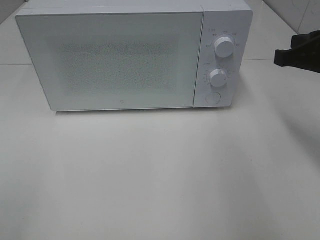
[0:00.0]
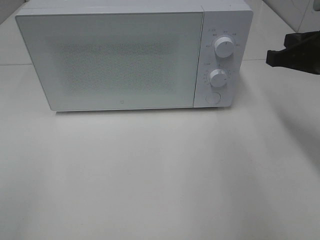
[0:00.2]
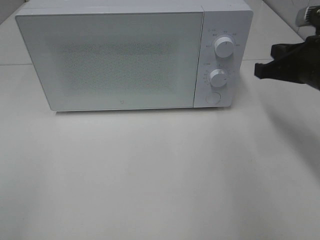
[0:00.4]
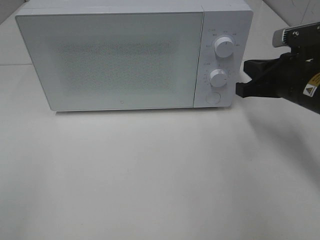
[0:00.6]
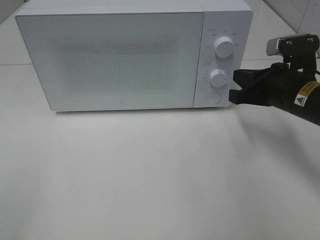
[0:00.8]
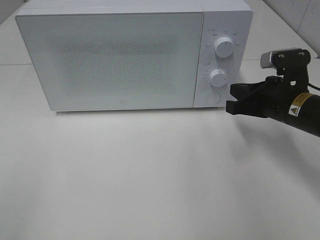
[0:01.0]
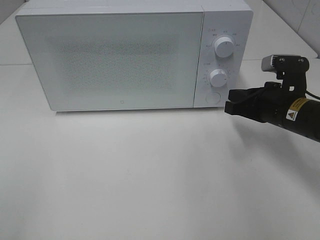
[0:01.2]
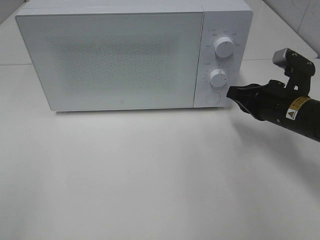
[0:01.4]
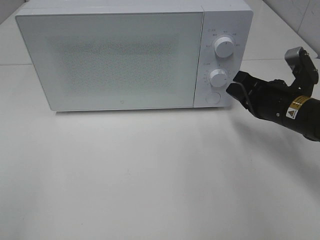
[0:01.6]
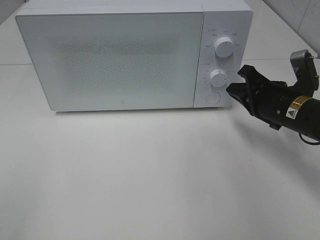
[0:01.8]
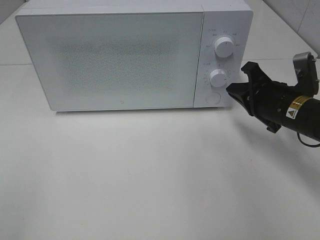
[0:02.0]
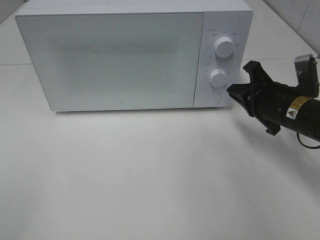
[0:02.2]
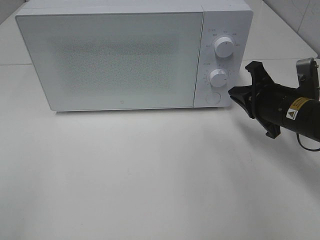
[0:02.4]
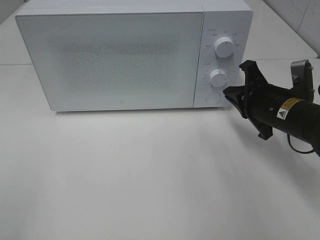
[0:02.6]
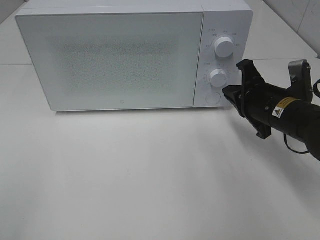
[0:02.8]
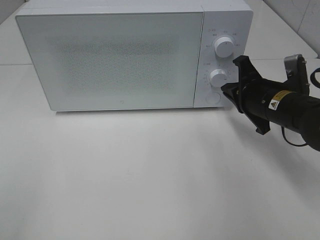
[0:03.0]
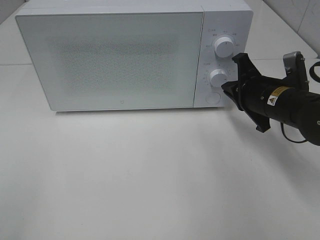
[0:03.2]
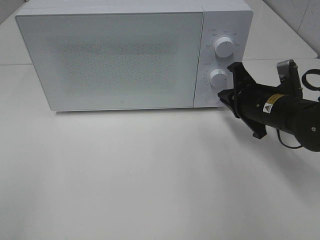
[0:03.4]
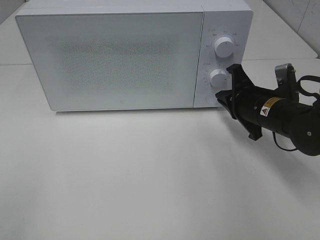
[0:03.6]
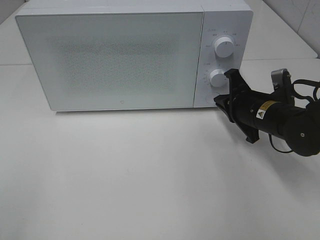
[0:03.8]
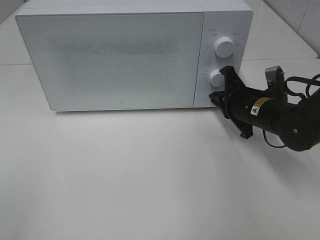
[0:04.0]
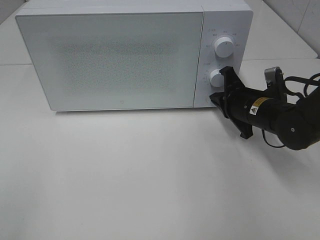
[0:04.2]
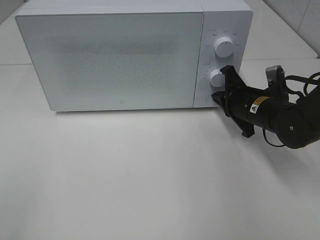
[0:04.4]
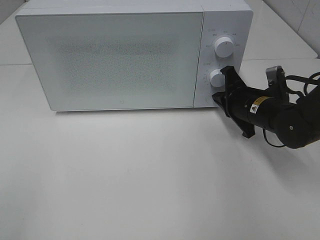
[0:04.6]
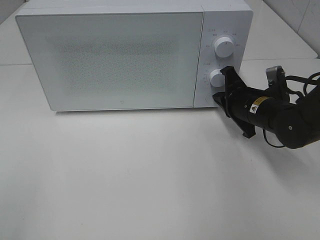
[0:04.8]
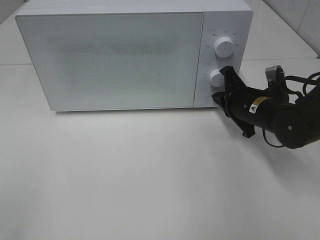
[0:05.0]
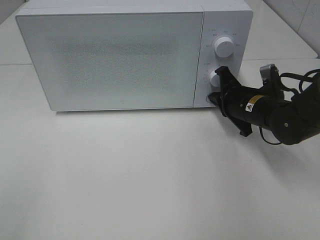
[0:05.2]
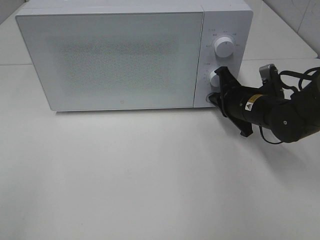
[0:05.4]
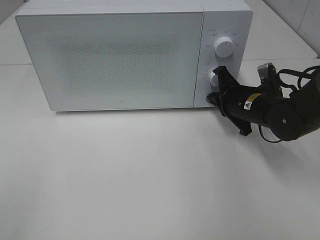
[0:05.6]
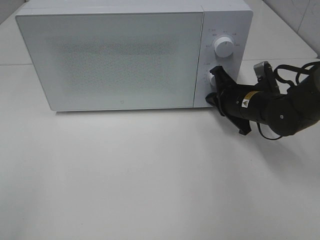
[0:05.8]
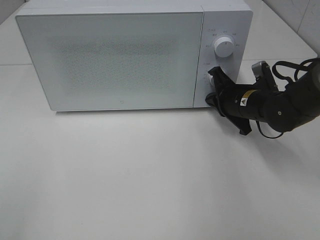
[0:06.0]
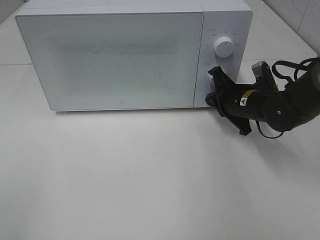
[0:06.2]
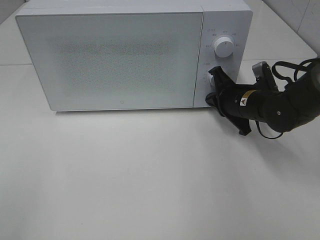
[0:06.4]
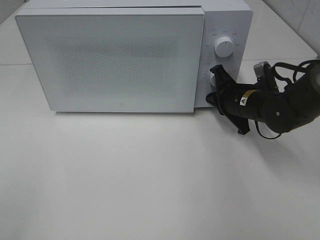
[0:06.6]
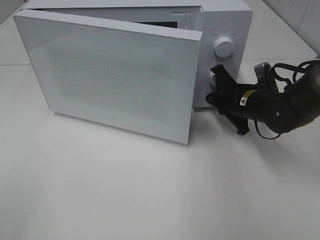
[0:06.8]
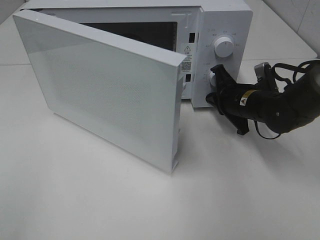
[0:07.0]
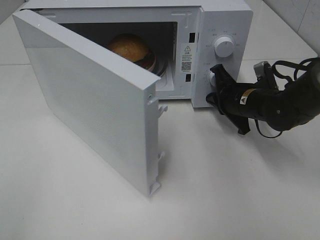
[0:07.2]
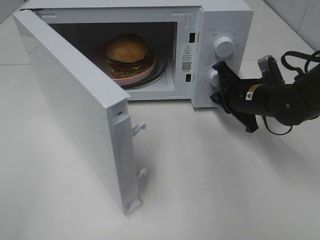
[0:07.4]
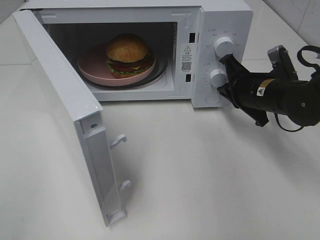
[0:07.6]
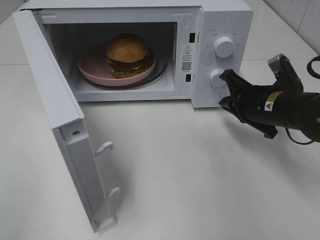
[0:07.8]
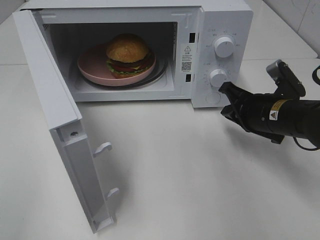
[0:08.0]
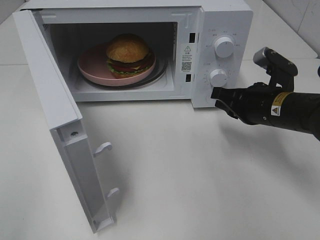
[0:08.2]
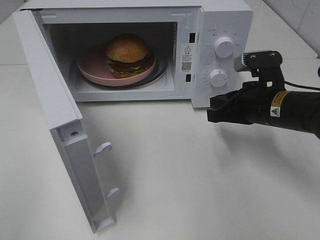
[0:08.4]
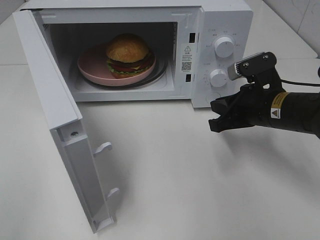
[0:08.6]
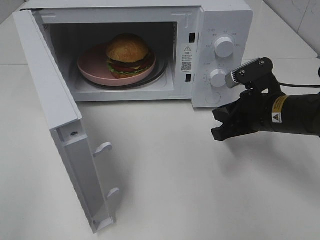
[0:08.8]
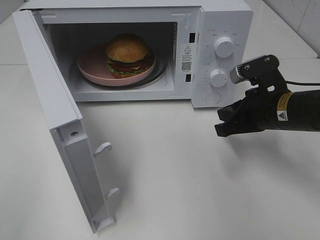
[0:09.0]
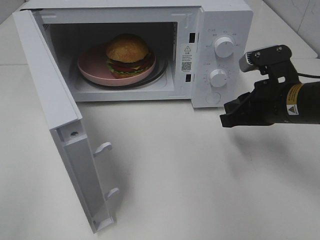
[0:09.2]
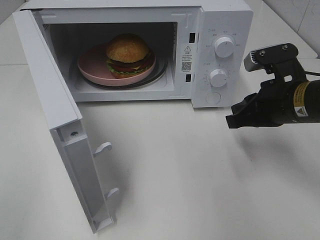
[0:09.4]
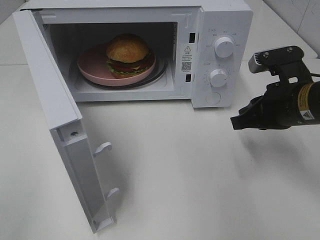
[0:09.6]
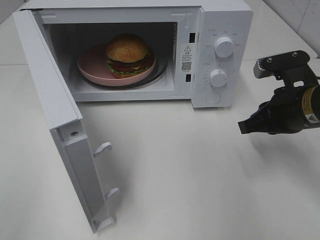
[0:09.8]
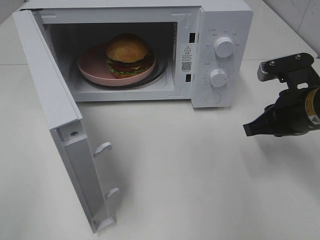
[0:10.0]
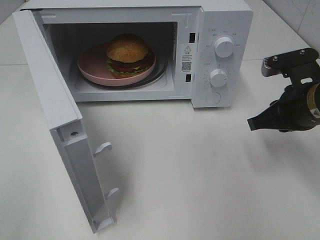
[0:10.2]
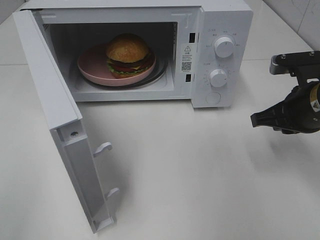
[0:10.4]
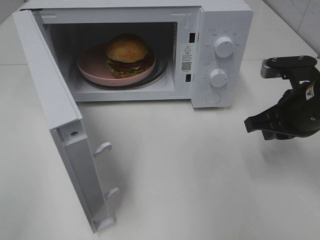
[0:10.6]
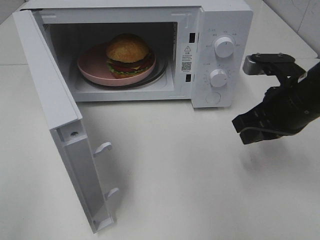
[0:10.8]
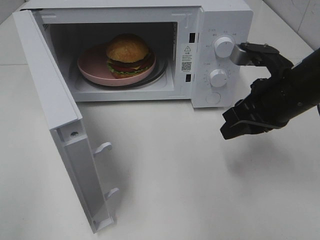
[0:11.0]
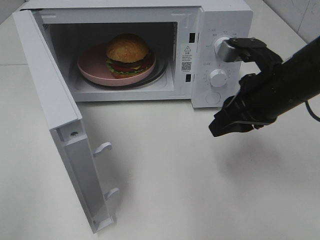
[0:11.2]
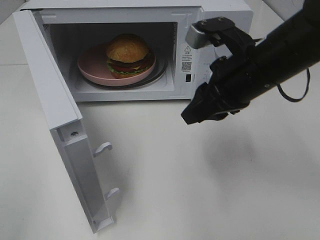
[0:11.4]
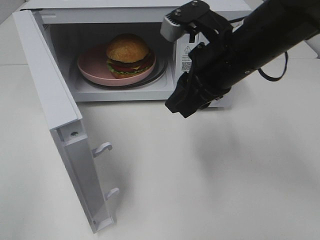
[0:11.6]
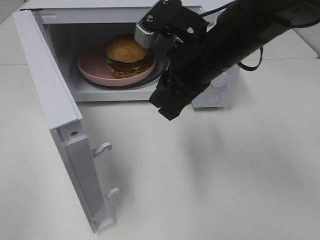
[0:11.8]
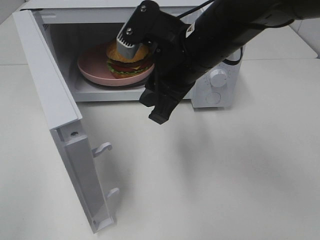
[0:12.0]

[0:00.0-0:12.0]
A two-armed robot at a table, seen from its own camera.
Task of the whole recording: Heat the burger.
Step, 0:00.0 to 0:07.4: Right hand: press the switch.
0:00.0 to 0:01.6: The right gripper heads downward, covering roughly 10 cm.
0:03.0 to 0:04.4: The right gripper ends up approximately 5 cm from where it was.
0:04.4 to 0:06.0: The grippers make only small movements.
0:07.6 to 0:09.0: The right gripper is displaced backward by approximately 5 cm.
0:10.4 to 0:12.0: The right gripper shifts some 20 cm to the left.

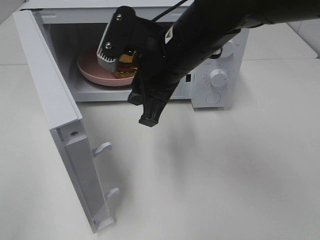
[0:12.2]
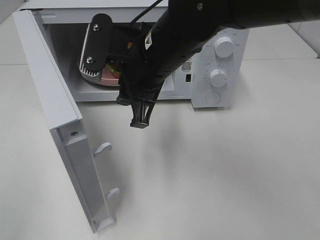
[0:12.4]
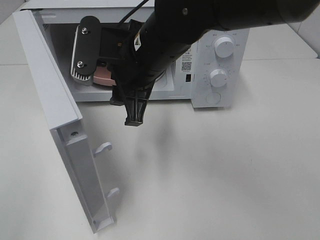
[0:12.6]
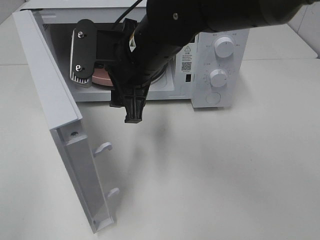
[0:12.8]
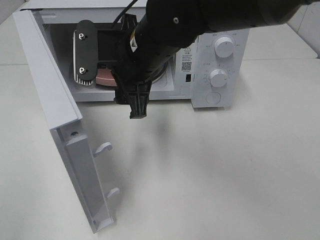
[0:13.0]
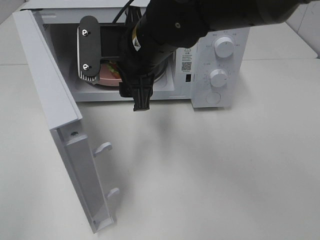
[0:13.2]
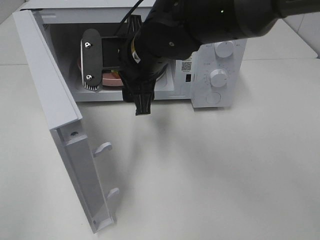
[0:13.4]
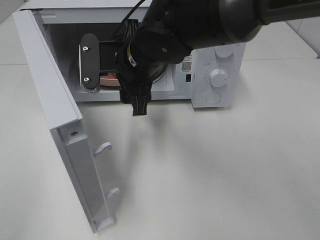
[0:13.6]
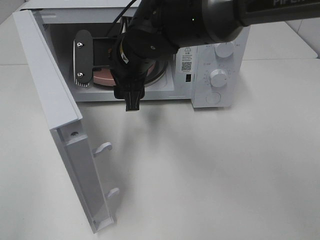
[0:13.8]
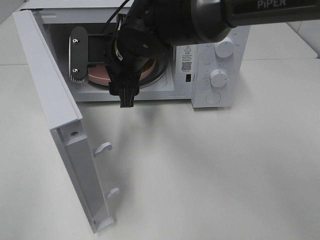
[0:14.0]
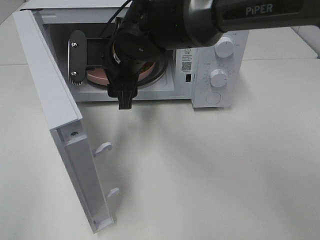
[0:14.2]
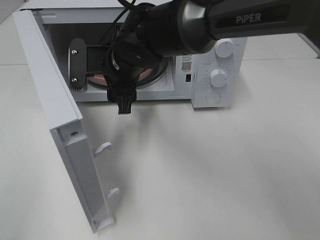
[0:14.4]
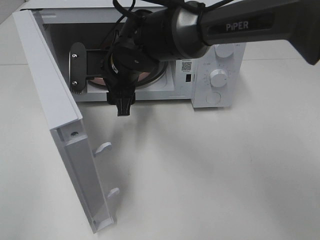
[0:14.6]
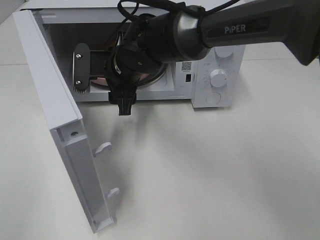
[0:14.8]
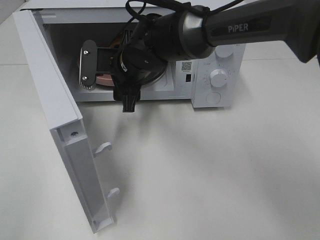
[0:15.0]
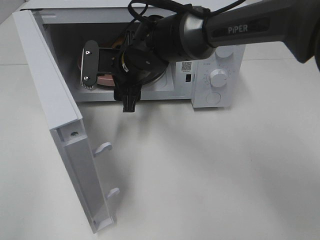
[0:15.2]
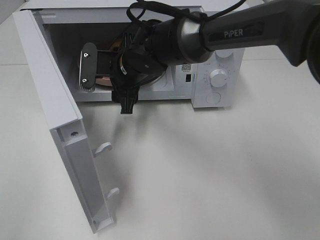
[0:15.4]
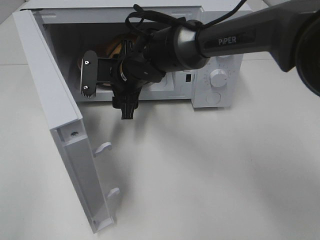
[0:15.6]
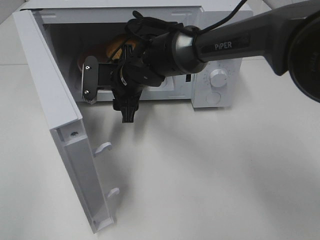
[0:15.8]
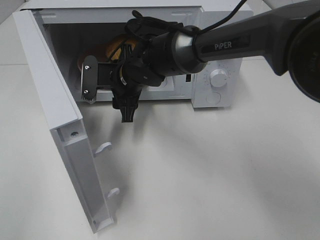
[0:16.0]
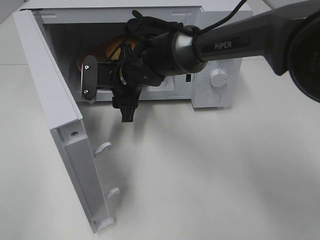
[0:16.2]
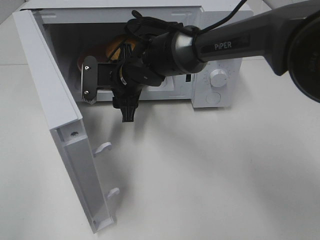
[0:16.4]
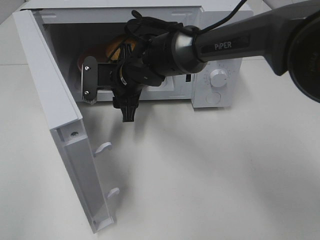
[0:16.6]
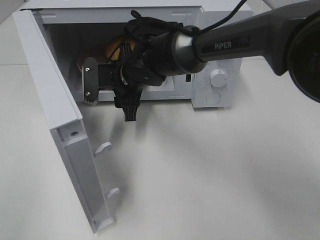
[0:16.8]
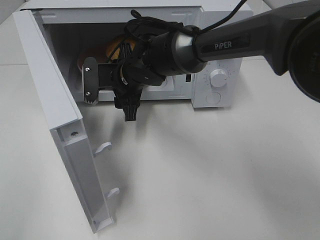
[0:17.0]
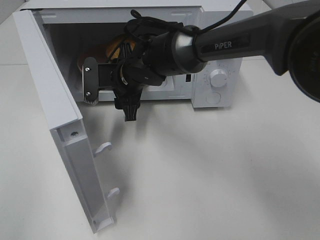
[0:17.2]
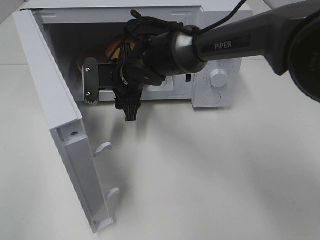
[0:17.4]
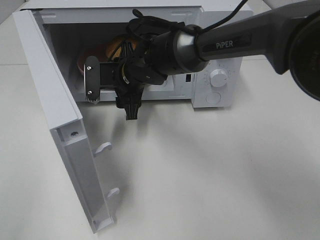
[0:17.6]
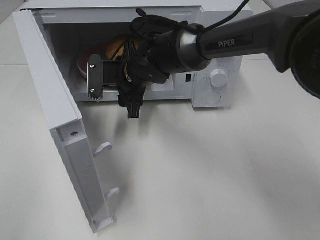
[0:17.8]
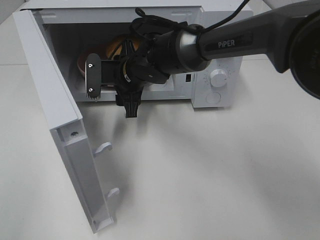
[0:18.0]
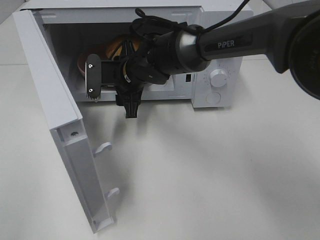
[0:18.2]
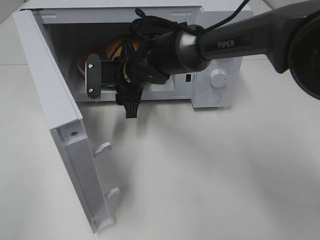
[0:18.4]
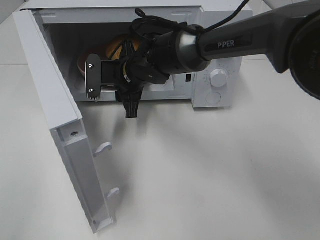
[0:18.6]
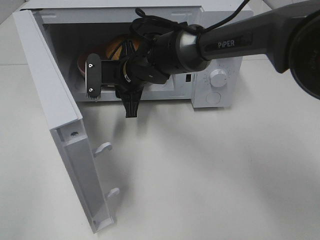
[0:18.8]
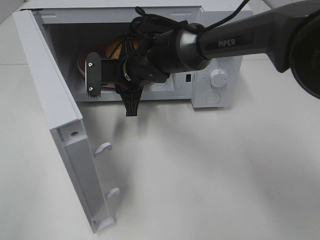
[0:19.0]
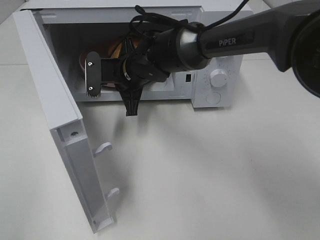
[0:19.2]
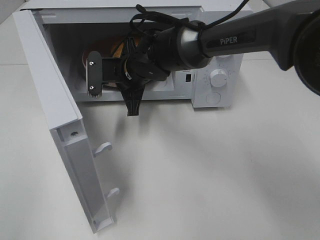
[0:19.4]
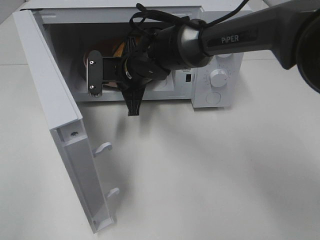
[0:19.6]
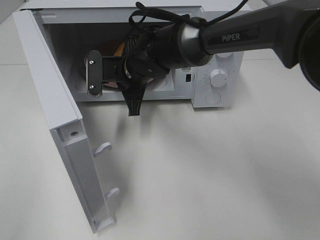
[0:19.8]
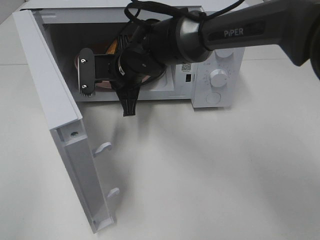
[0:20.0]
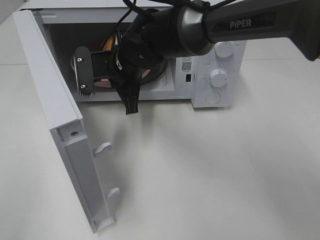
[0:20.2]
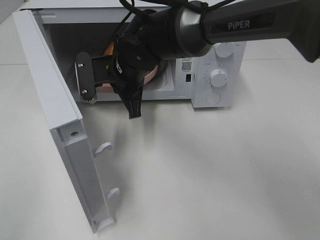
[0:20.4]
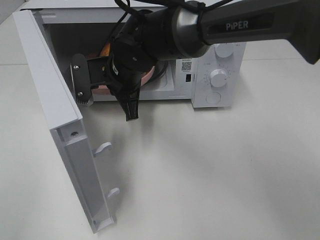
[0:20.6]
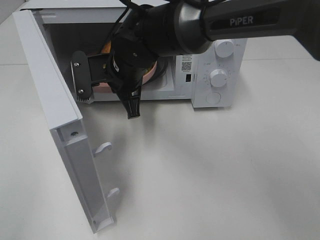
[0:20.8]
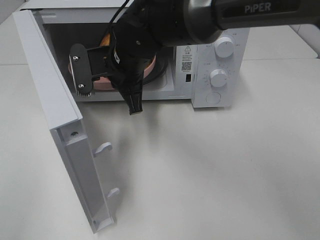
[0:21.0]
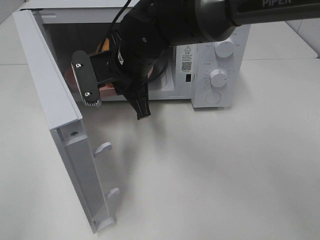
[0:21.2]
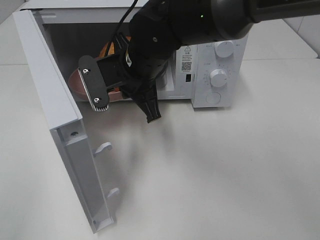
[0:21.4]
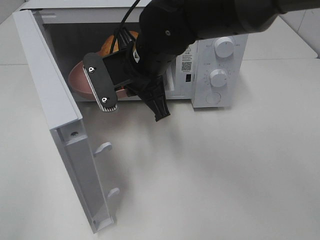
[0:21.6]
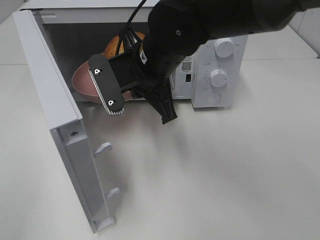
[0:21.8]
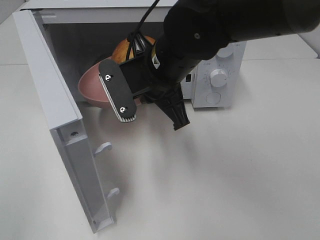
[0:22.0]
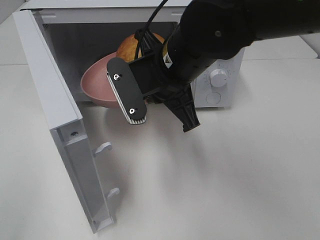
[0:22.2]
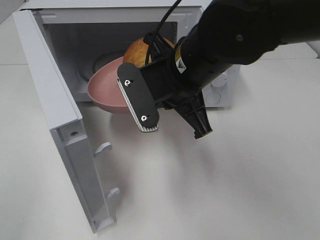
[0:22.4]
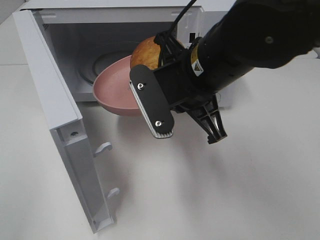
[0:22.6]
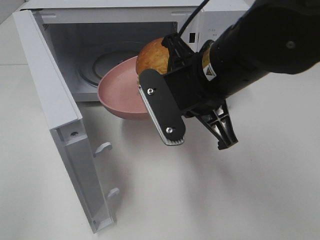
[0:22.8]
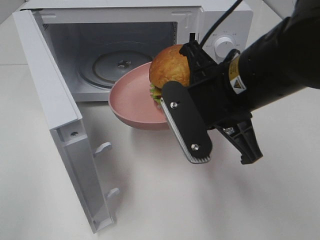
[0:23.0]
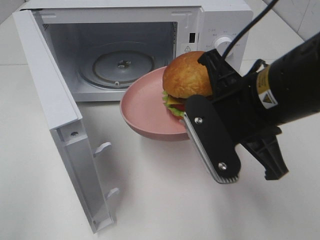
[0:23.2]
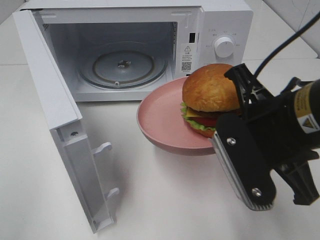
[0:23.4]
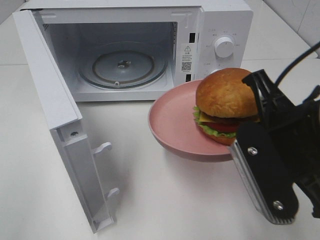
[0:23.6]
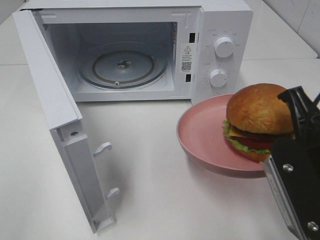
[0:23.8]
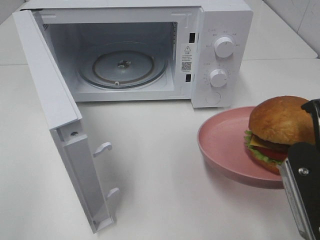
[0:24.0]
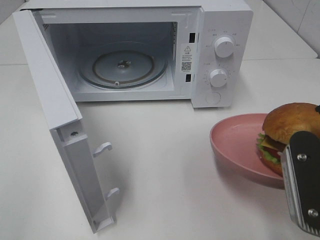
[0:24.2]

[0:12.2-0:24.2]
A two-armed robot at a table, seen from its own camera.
Task of the whole recording: Heat the burger.
Step, 0:12.2 to 0:19.0: Right hand: grab the plate with the hamburger.
0:12.2 to 0:13.8: The right gripper travels to the left and forward by roughly 10 cm, and opens.
0:13.8 to 0:15.2: The right gripper shifts by approximately 5 cm.
0:15.2 to 0:16.6: The grippers move only a little.
0:16.6 to 0:18.2: Both grippers stay put.
0:18.2 to 0:19.8: The right gripper closes.
0:19.8 to 0:21.2: The right gripper is displaced backward and upward by about 5 cm.
0:21.2 to 0:22.6: The right gripper heads to the right and backward, covering roughly 15 cm.
0:22.6 to 0:24.2: The right gripper shifts some 20 cm to the right and backward.
